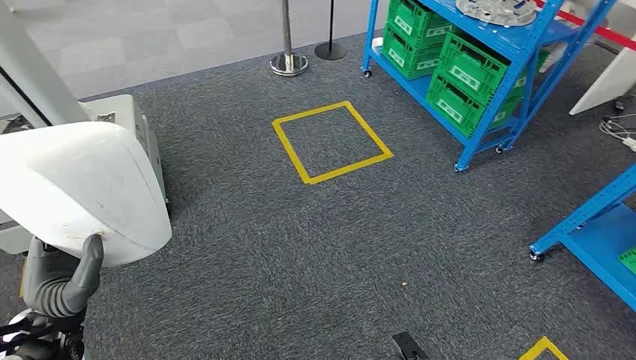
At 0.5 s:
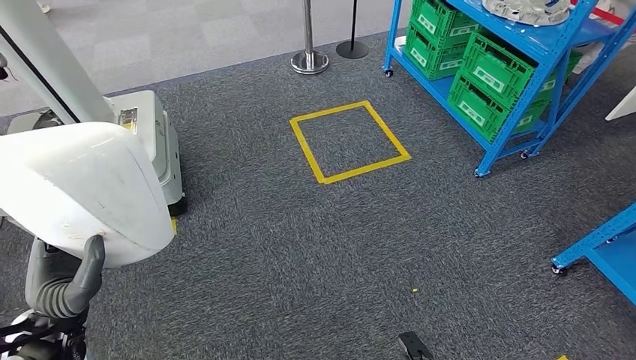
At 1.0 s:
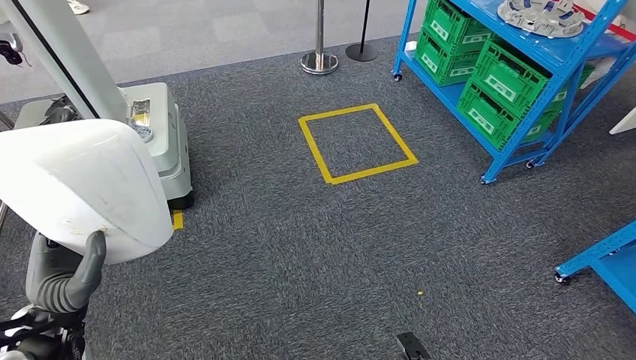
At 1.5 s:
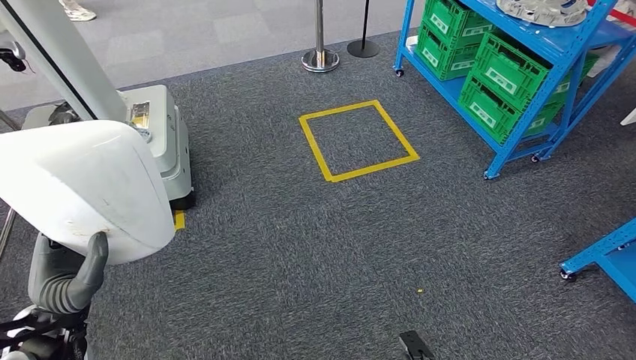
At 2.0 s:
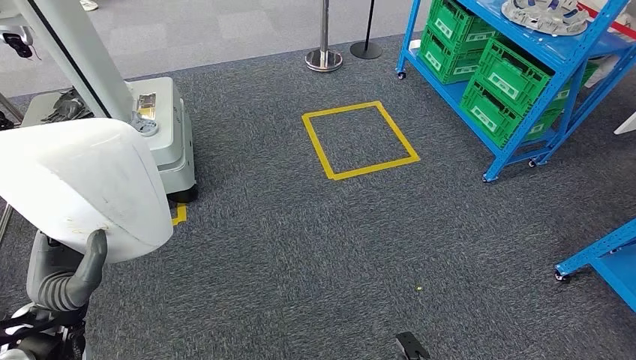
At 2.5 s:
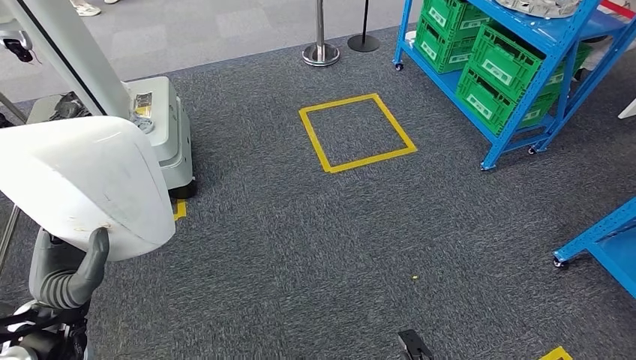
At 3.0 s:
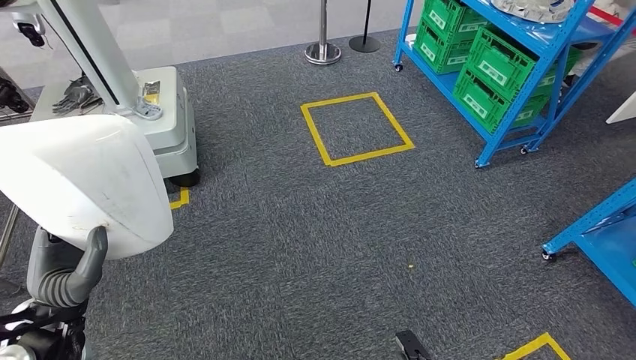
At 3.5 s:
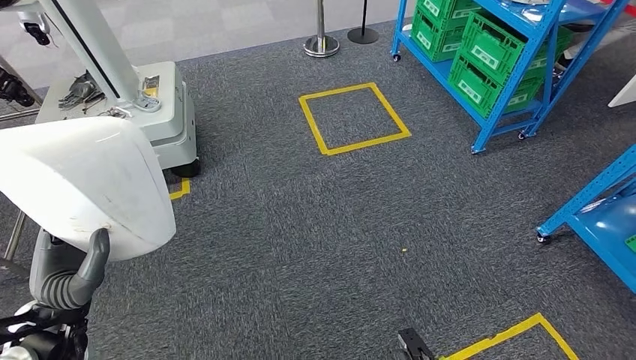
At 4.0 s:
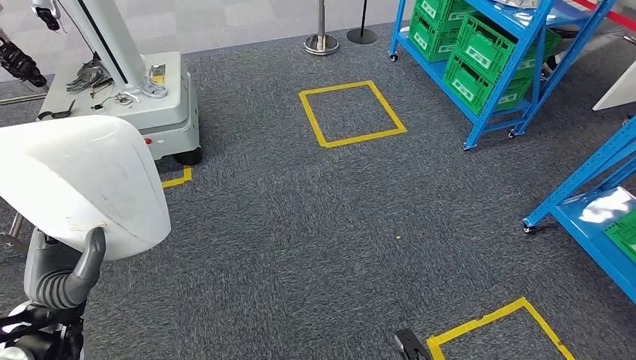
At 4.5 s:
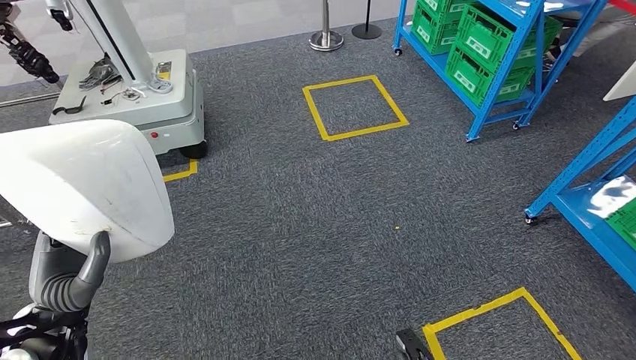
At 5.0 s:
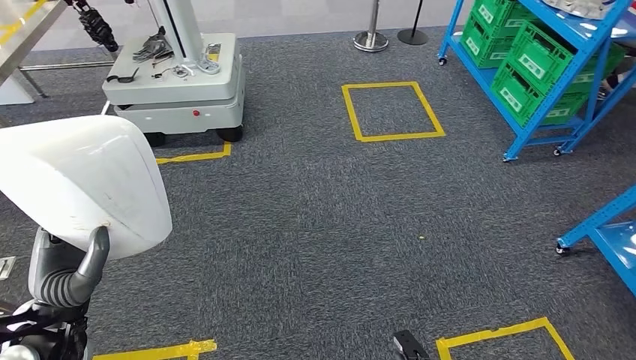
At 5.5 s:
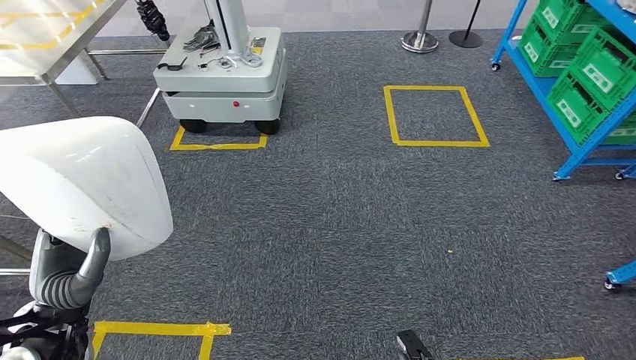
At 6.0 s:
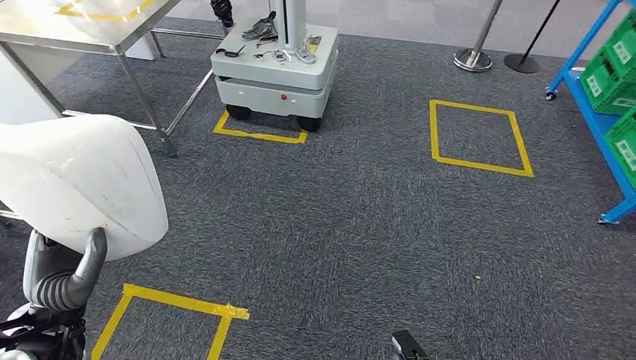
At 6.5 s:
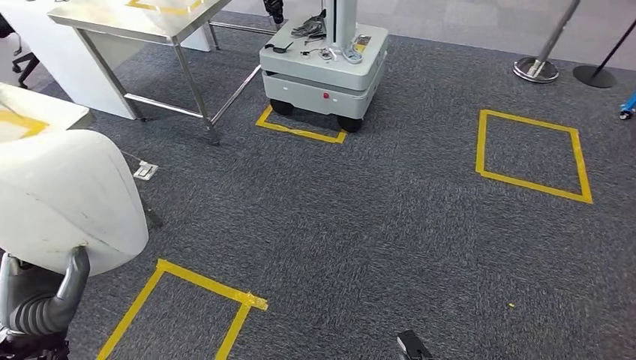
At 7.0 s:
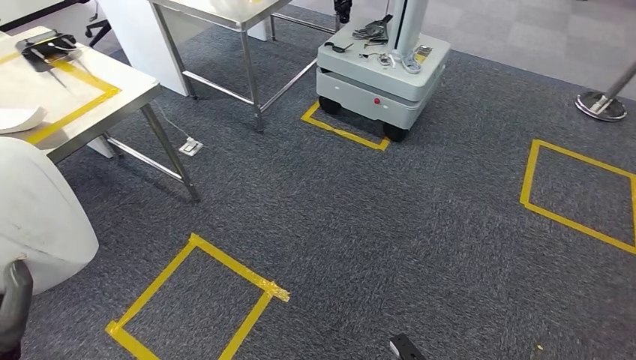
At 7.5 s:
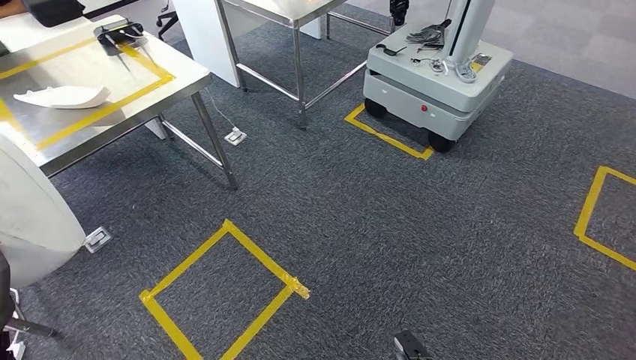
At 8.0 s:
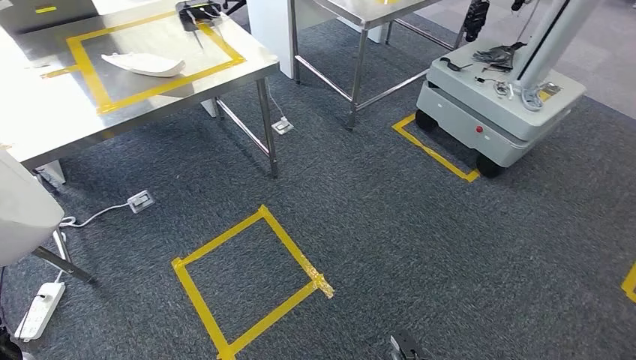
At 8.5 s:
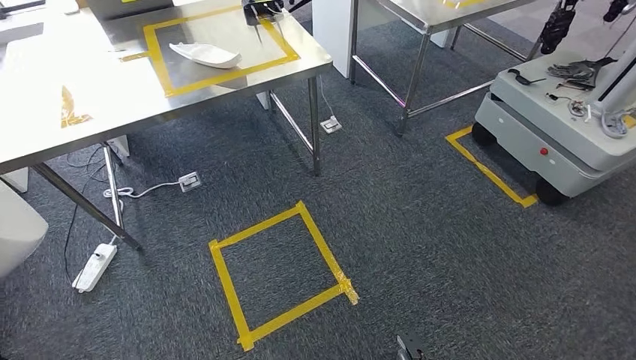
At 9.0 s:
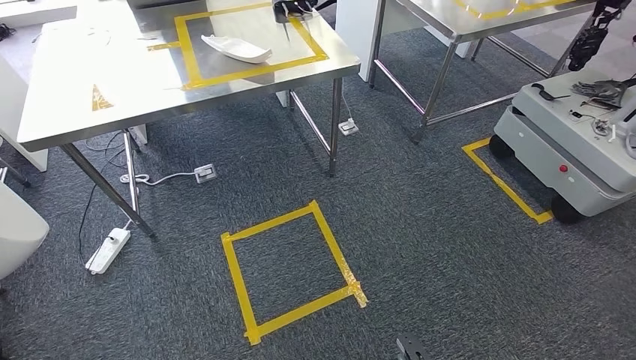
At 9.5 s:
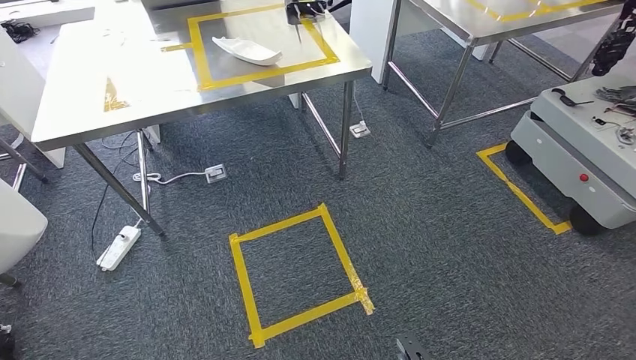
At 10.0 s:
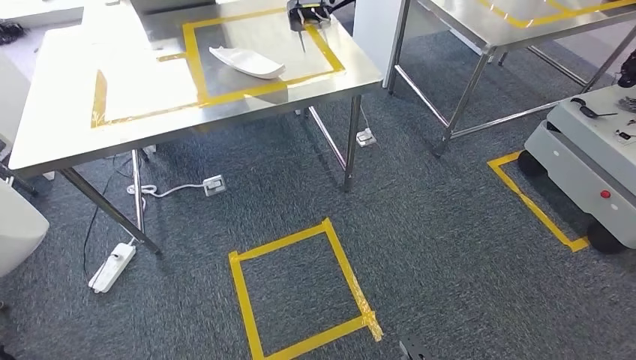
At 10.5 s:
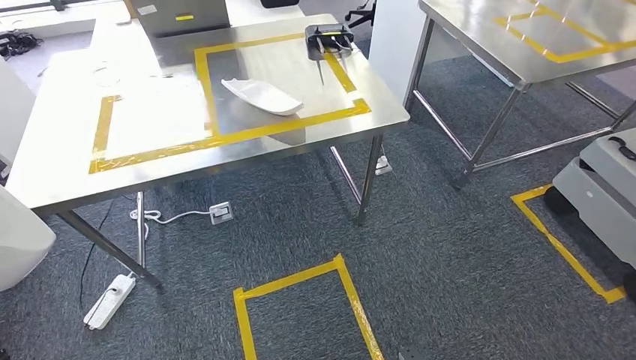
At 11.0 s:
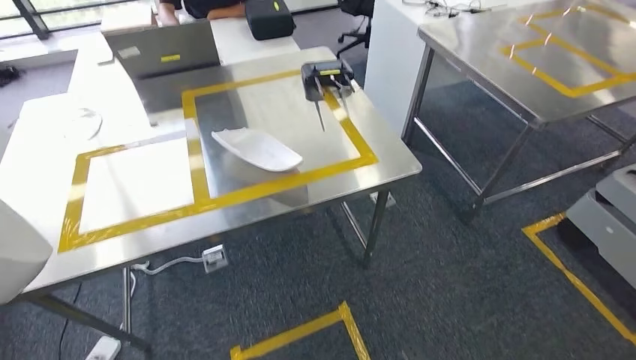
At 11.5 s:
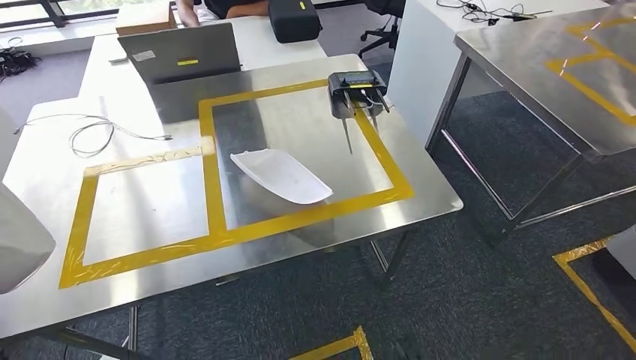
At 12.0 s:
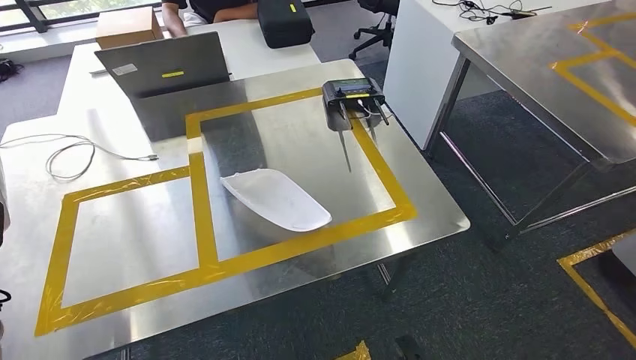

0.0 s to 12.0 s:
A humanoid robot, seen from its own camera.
Step, 0.0 to 12.0 s: Move the small parts to the workbench.

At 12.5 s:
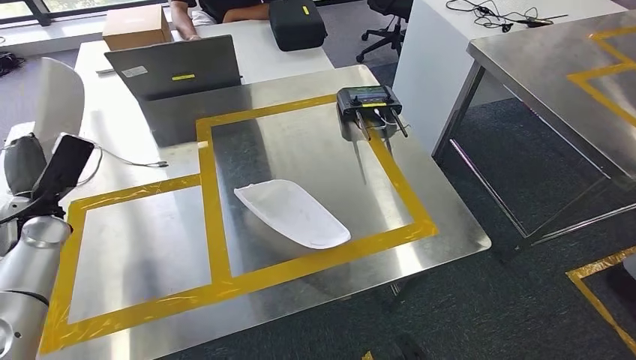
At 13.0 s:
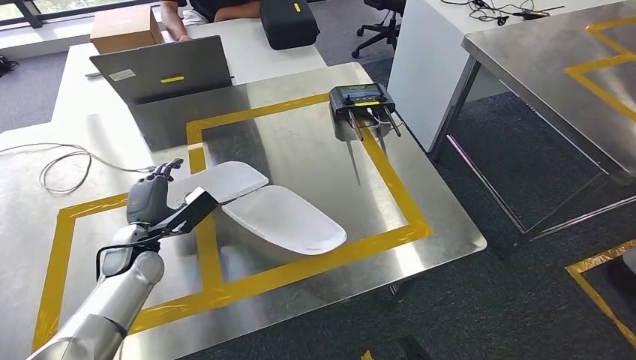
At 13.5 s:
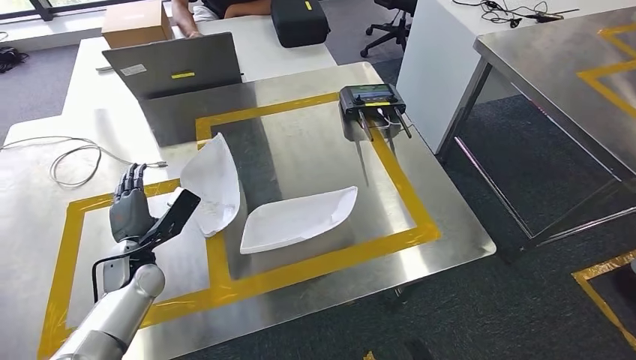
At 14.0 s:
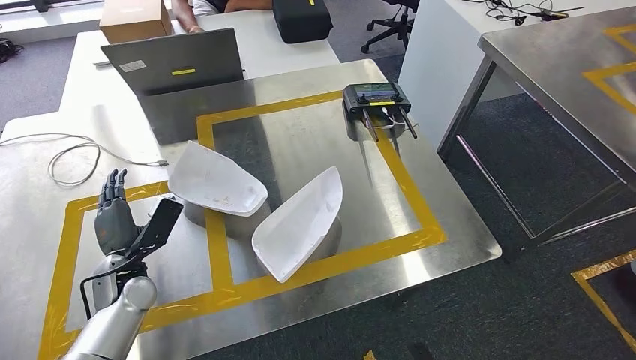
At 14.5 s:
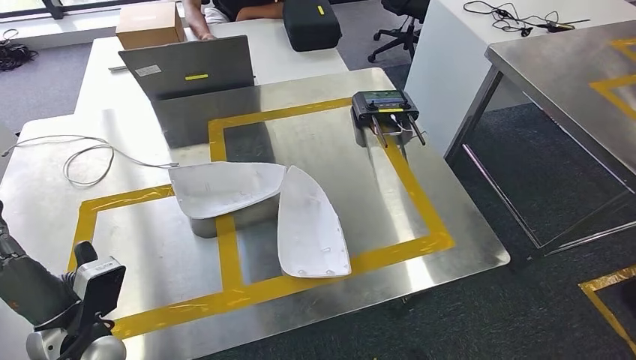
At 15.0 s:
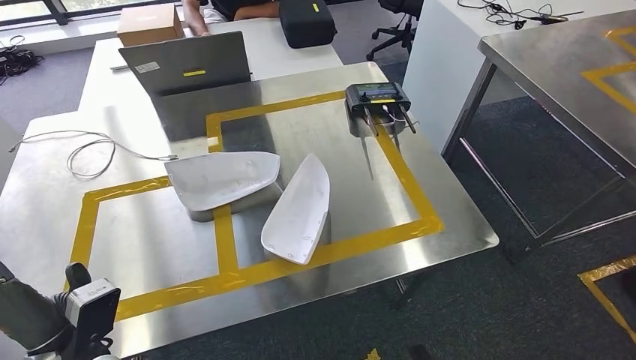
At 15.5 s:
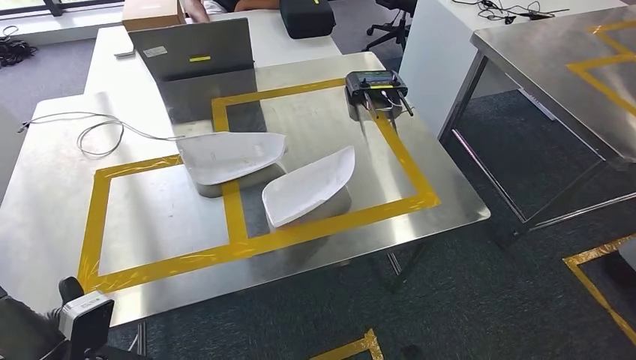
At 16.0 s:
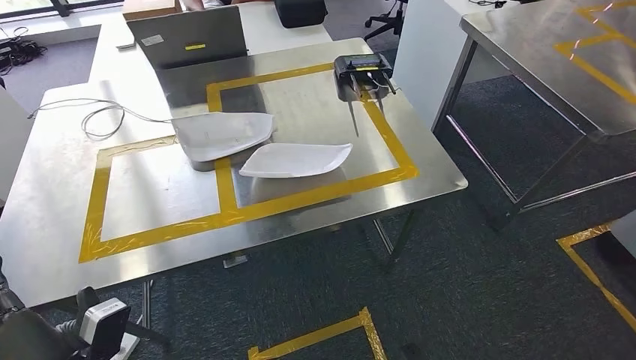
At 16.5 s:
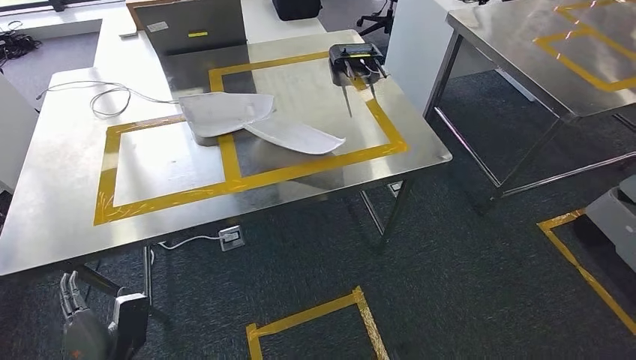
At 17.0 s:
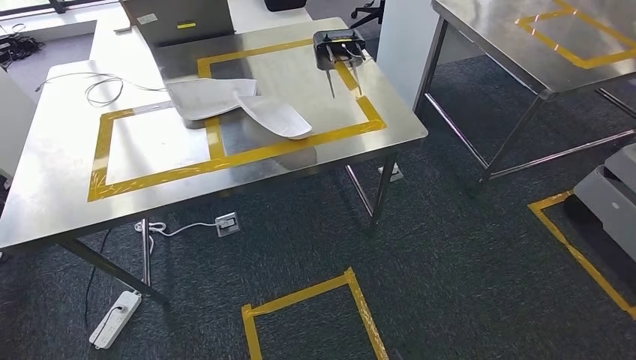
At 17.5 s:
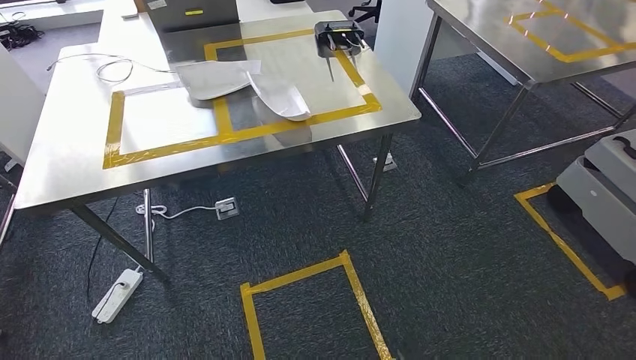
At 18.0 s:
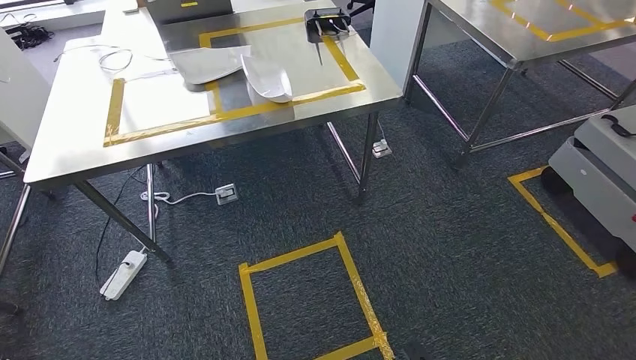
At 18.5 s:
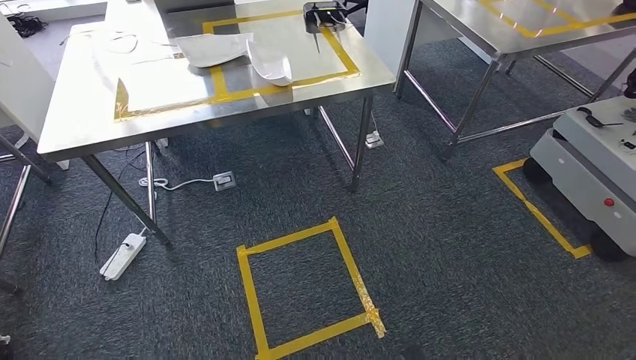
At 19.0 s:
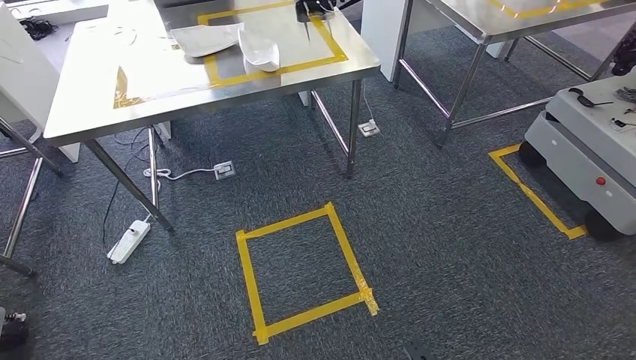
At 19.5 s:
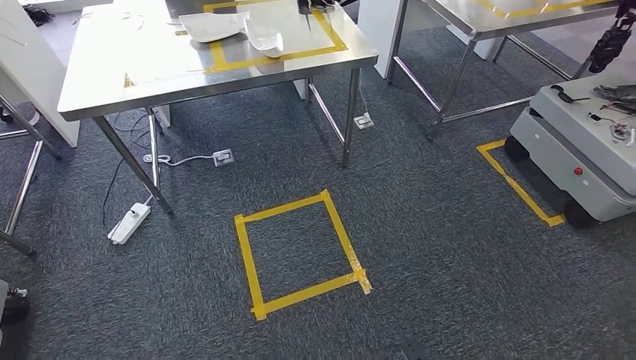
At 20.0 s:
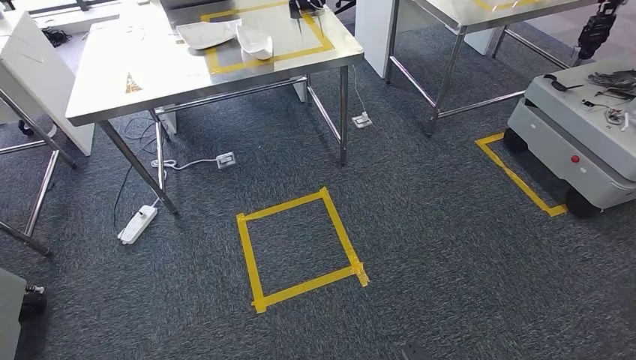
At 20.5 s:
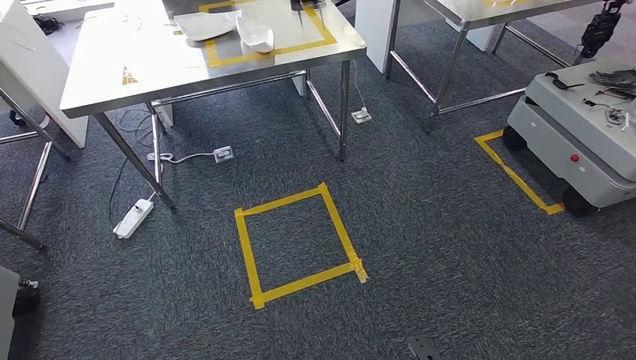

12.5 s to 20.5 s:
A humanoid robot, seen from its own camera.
Step, 12.5 to 16.5 s: Insert the small parts into the corresponding holes on the workbench.
Step, 17.0 to 20.5 s: Move to the initial position of the workbench.
